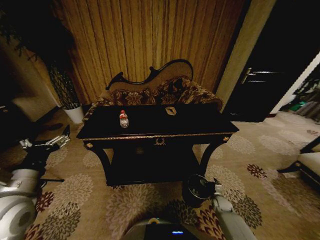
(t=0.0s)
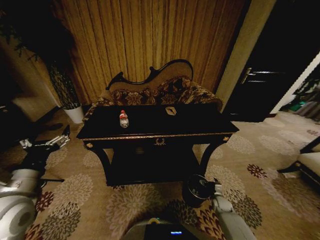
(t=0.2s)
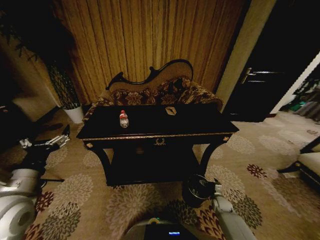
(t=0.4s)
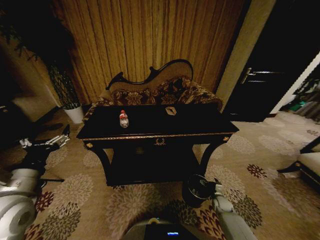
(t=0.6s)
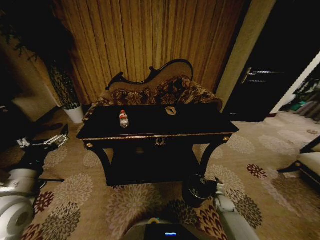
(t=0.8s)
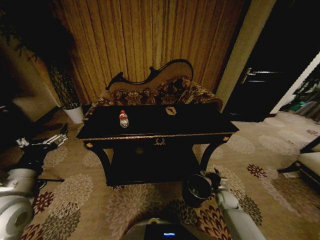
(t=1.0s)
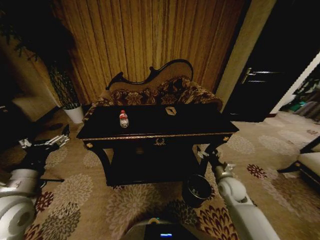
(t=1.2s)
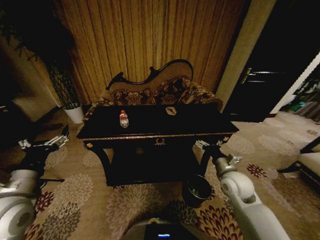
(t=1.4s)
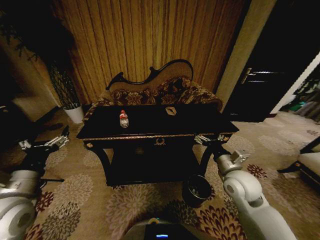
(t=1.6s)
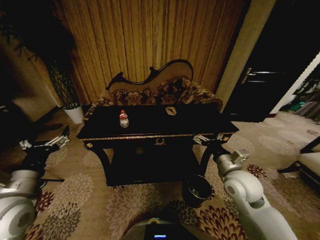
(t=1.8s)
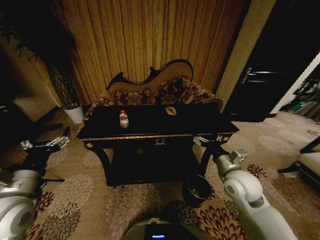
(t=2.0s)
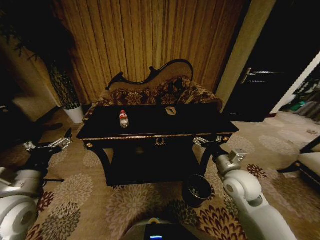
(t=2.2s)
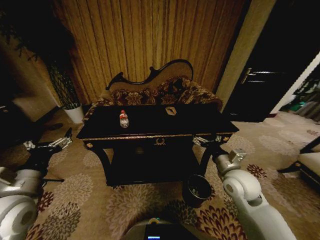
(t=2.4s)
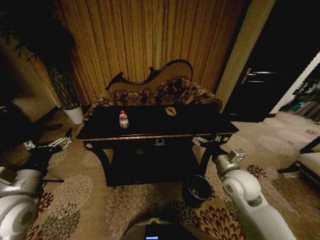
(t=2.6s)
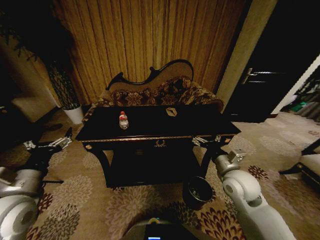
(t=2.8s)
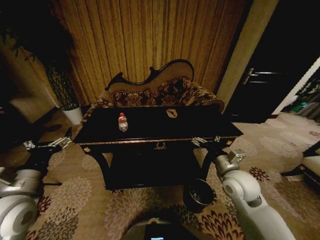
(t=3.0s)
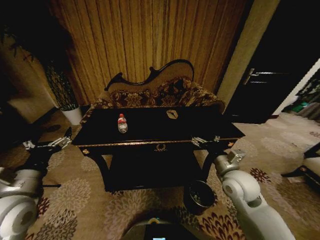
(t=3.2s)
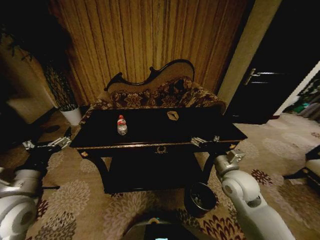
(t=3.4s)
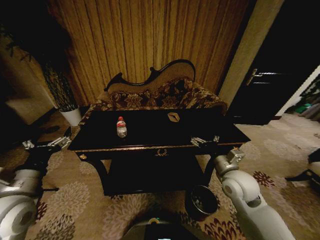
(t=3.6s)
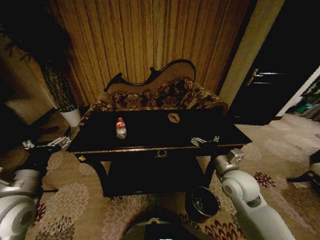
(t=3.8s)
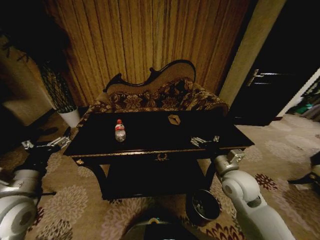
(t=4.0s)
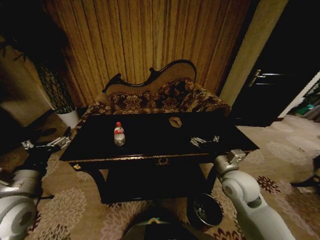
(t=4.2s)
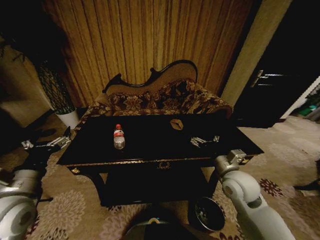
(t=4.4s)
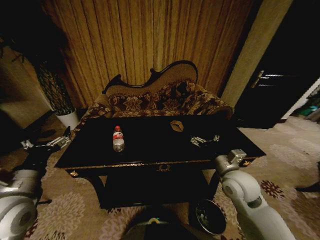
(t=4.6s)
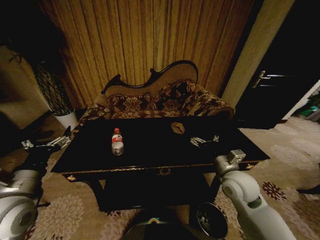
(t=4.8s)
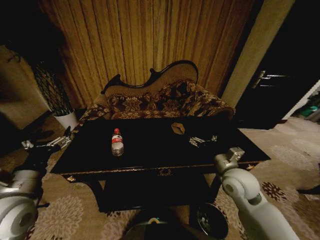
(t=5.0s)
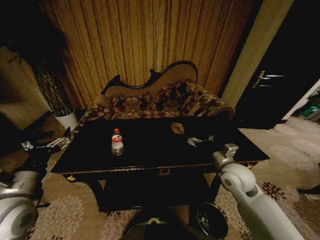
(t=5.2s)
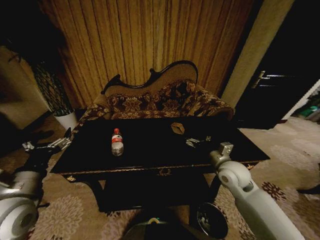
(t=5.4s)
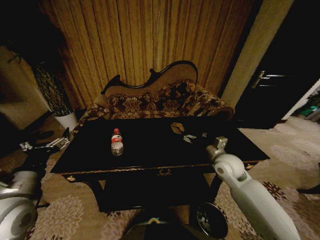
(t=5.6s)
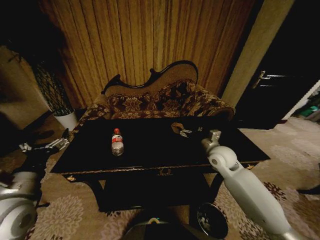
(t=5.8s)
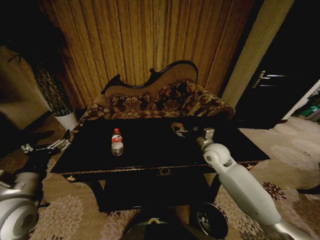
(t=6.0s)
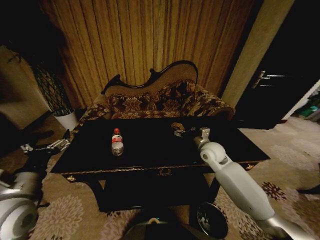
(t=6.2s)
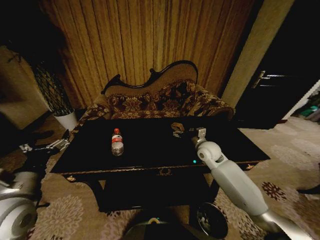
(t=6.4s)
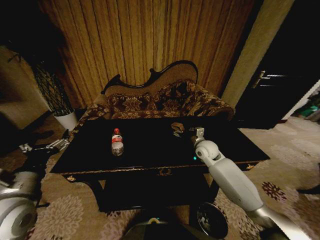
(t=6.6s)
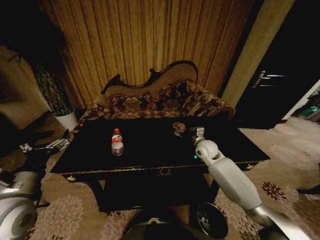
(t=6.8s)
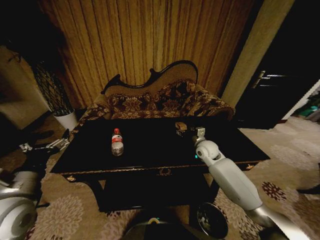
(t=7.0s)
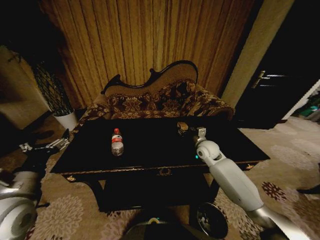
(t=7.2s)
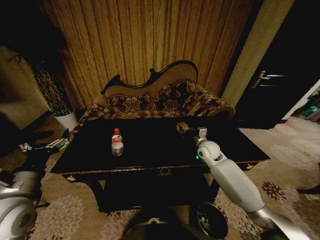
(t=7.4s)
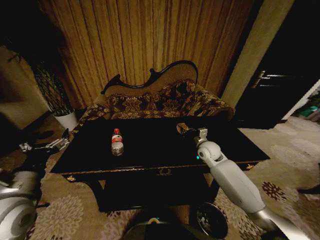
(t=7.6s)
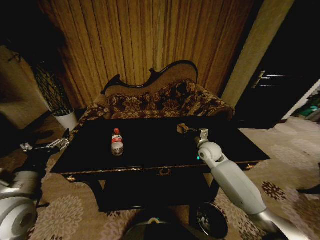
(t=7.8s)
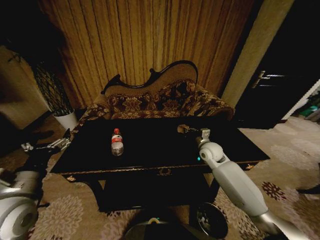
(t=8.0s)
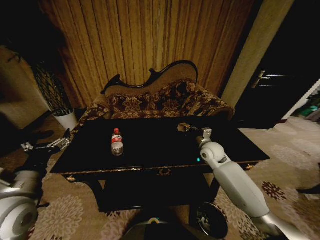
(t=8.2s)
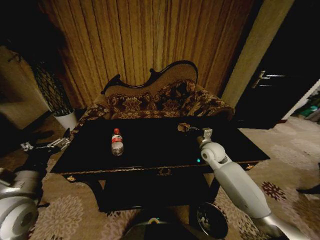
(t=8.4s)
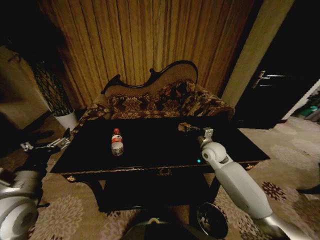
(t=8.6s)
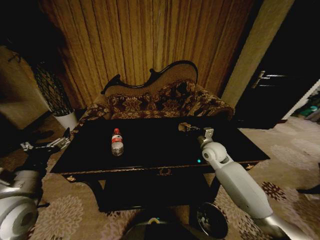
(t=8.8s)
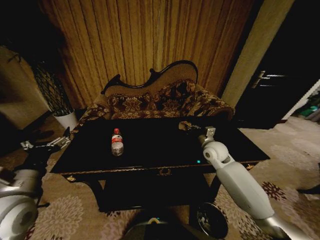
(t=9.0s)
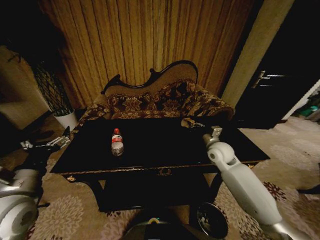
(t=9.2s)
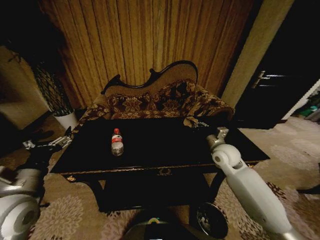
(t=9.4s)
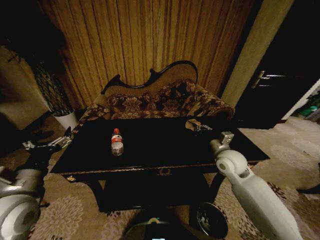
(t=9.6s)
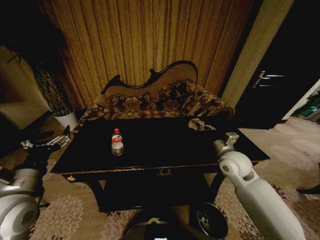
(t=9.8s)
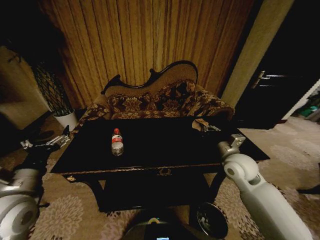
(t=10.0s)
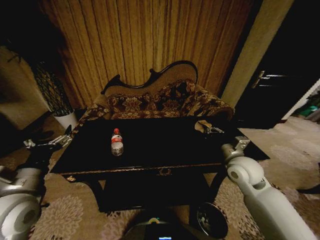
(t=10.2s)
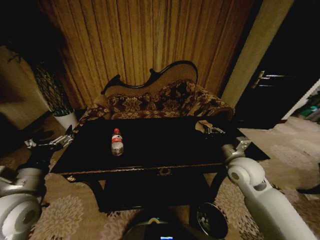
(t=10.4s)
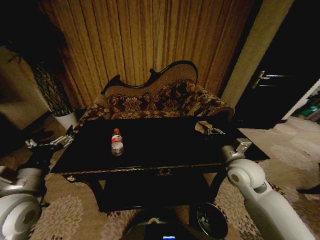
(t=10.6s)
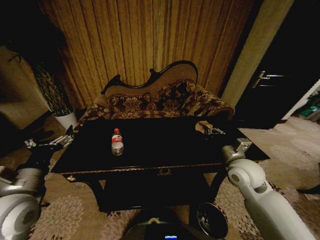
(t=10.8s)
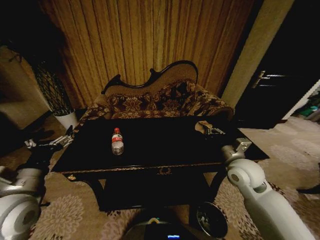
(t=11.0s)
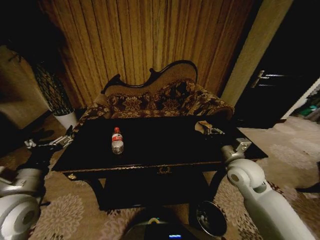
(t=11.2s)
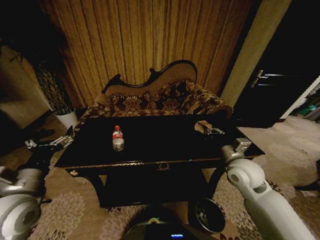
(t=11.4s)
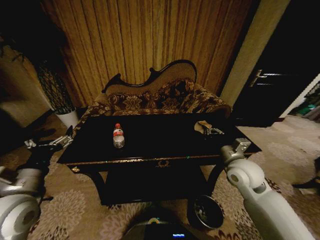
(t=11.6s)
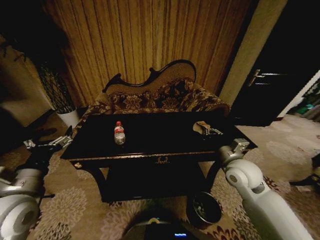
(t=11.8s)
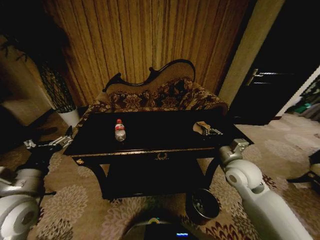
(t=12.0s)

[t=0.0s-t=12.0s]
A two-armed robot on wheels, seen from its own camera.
Task of the whole recording: Move to the front of the table and place the trash on the table into the trash bin.
t=0.0s to t=1.6s: The right gripper shifts roughly 35 cm upward.
t=1.6s to t=3.0s: Both grippers stay put.
t=4.4s to t=6.0s: The right gripper heads forward, covering approximately 15 cm.
t=6.0s to t=7.6s: The right gripper changes place by roughly 5 cm, and closes up.
t=7.6s to t=9.0s: There are only small adjustments of the grippers.
t=9.0s to t=10.4s: The right gripper shifts about 10 cm backward.
t=10.4s to t=12.0s: Both grippers stay about where they are.

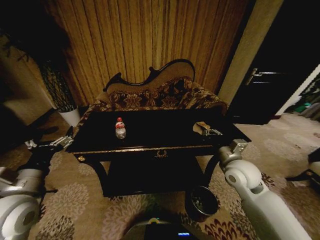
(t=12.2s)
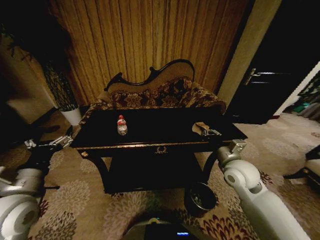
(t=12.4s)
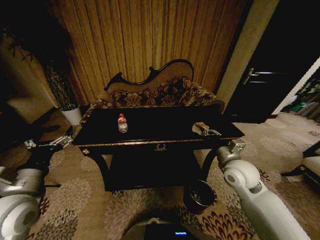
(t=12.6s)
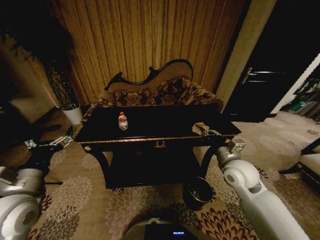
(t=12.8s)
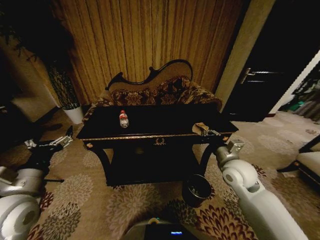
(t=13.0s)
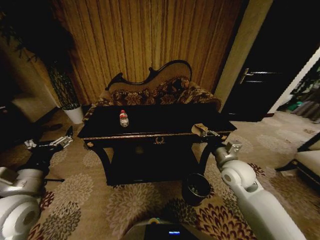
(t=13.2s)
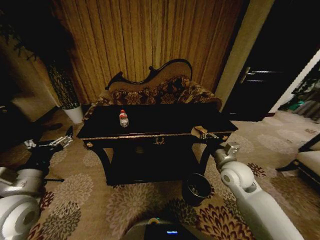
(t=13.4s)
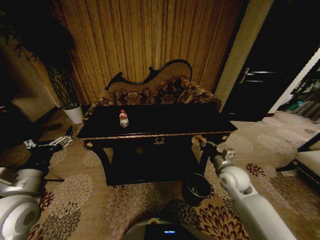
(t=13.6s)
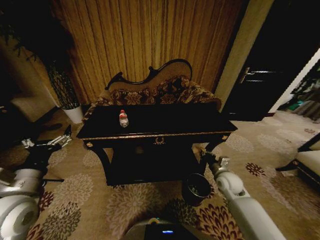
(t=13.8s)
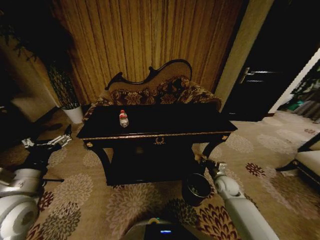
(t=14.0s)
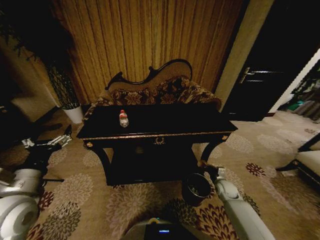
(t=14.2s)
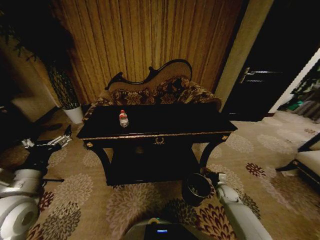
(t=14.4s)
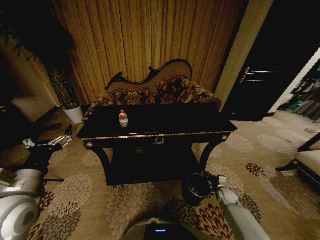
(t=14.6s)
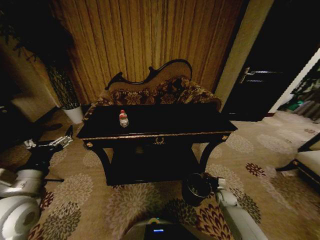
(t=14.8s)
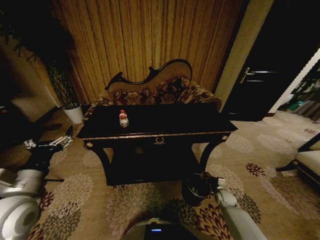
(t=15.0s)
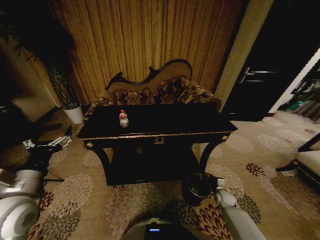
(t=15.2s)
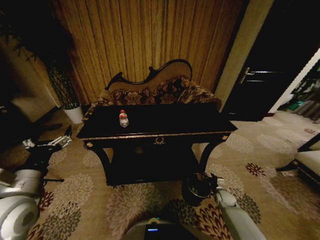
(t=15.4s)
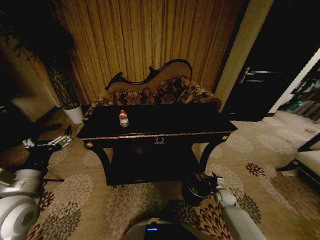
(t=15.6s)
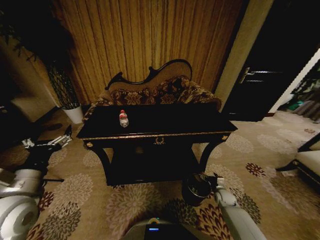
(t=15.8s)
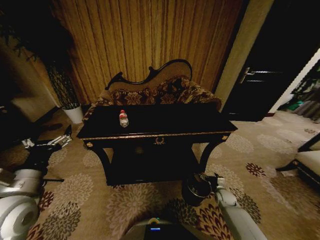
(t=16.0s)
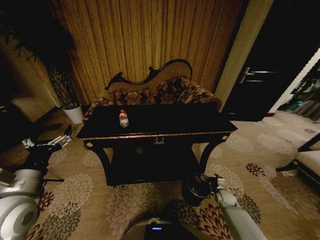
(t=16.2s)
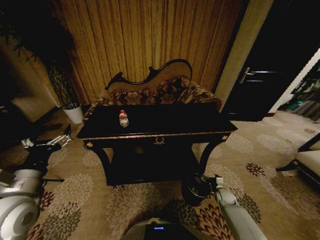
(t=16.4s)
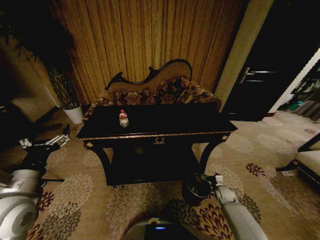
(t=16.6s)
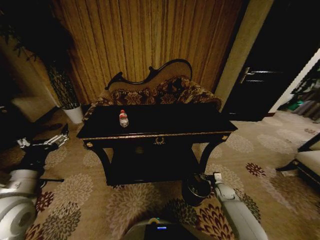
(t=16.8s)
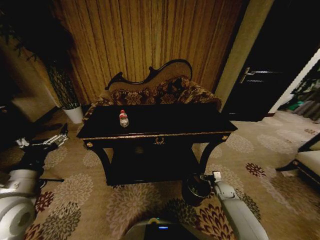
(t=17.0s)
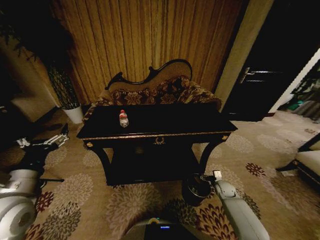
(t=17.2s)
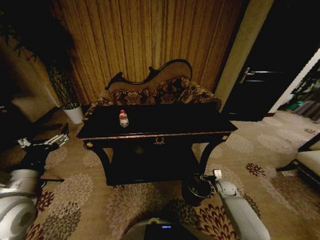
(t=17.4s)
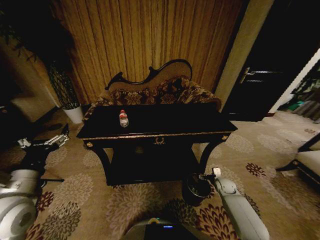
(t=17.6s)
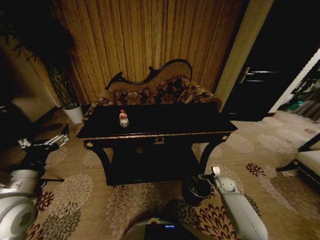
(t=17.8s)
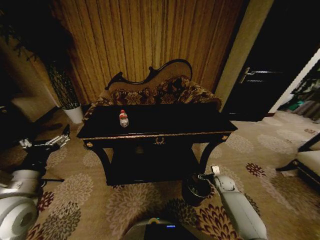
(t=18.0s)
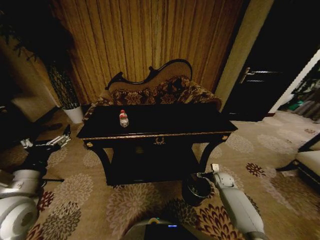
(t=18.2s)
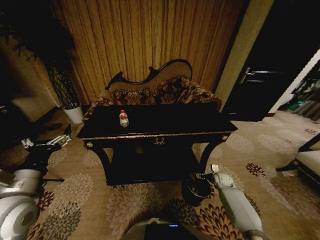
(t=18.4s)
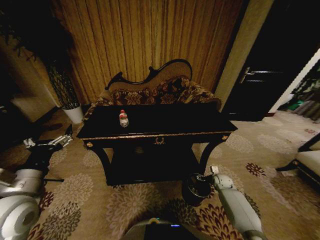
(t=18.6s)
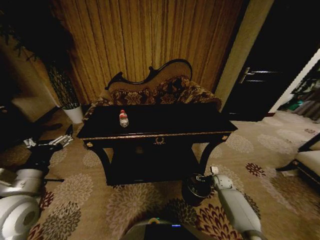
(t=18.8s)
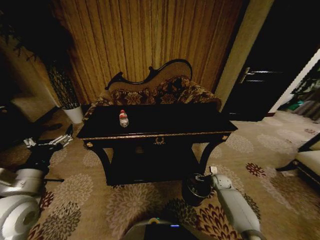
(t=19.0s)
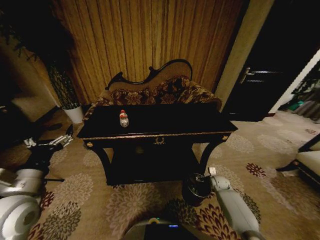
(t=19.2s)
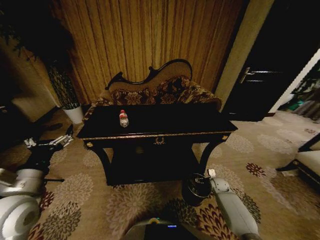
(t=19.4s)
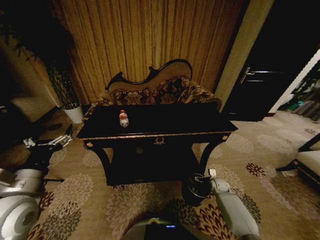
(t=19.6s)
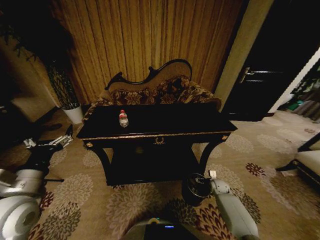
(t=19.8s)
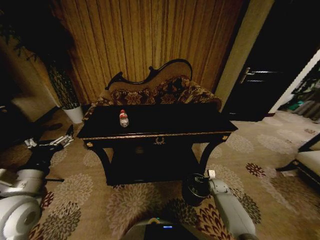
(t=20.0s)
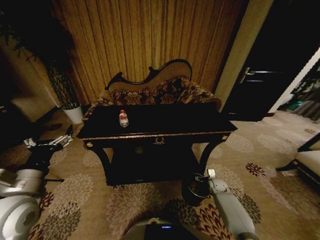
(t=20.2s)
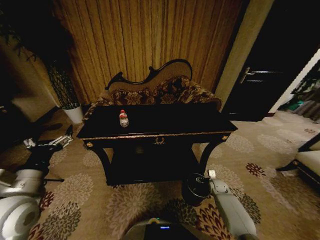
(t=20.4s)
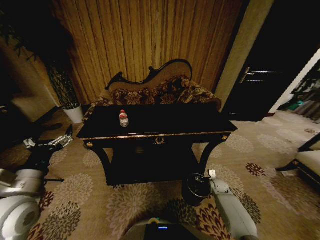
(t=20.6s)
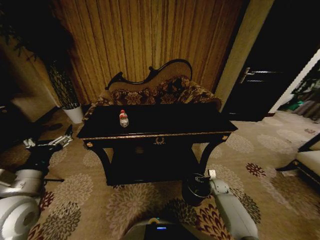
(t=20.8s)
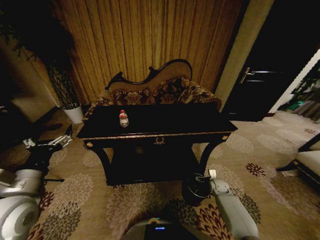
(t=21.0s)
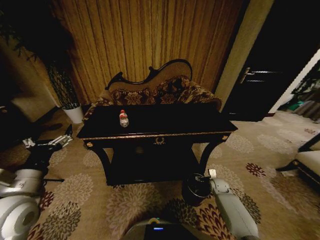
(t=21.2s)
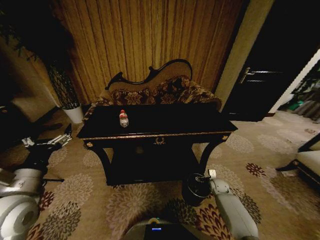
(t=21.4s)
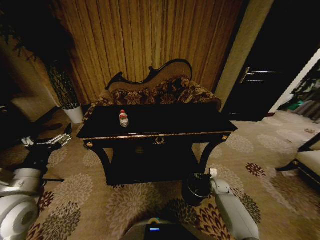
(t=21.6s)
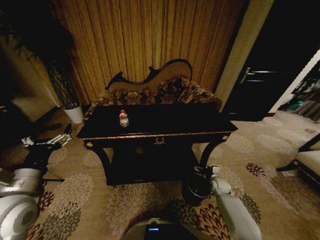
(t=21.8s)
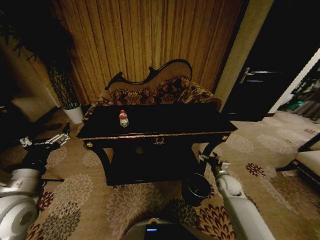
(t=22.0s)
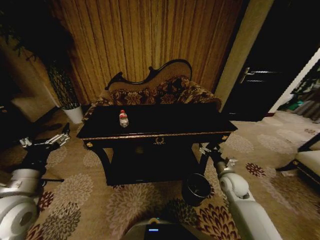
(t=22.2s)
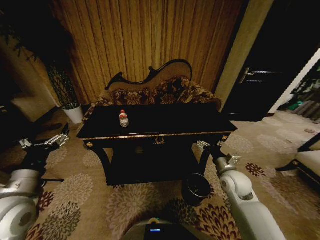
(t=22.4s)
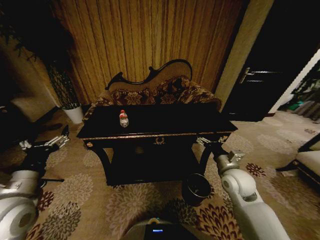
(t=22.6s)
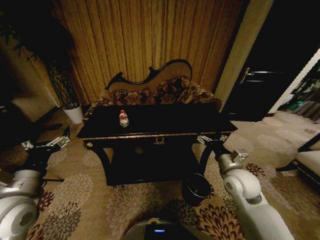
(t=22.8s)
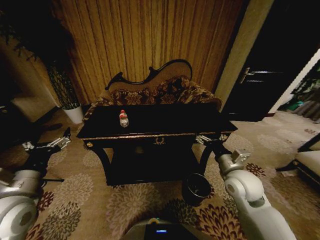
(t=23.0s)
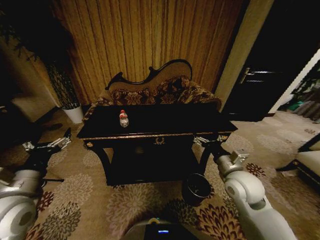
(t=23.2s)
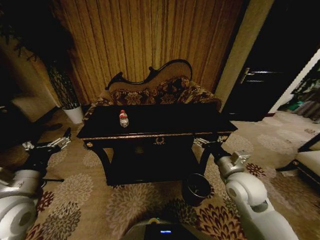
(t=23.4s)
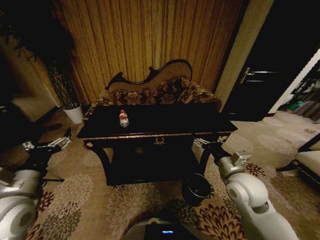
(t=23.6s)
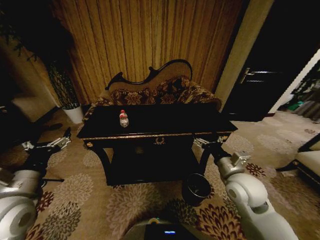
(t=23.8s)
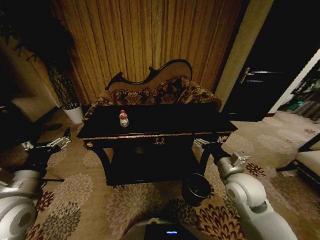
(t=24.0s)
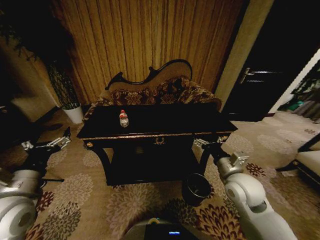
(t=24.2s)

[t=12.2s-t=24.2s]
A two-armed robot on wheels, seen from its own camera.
Task of the whole recording: Move to the front of the table and place the trash on the table into the trash bin.
t=12.2s to t=13.8s: The right gripper shifts some 15 cm downward.
t=13.8s to t=15.2s: The right gripper is displaced downward by some 20 cm.
t=15.2s to t=16.6s: The right gripper opens.
t=16.6s to t=18.2s: The right gripper moves forward and upward, about 10 cm.
t=18.2s to t=19.8s: The right gripper ends up approximately 5 cm from where it was.
t=19.8s to t=21.2s: Both grippers stay about where they are.
t=21.2s to t=22.6s: The right gripper travels upward by some 25 cm.
t=22.6s to t=24.2s: The right gripper changes place by roughly 5 cm.
